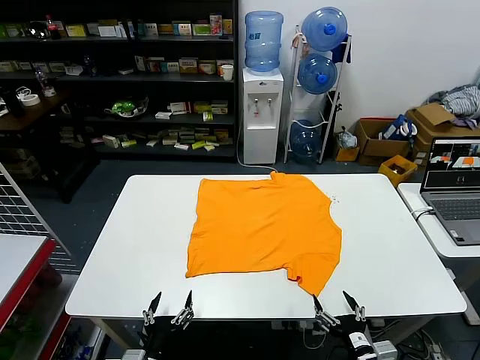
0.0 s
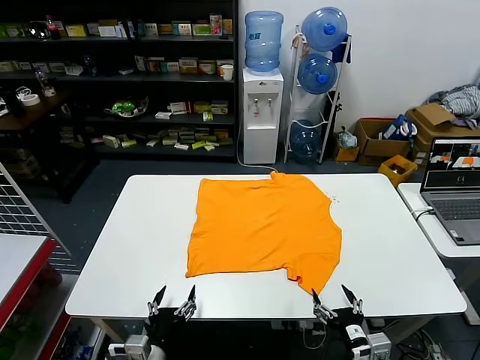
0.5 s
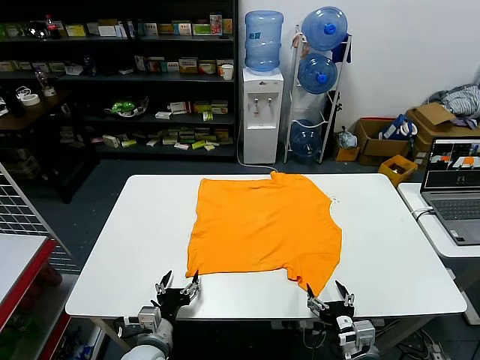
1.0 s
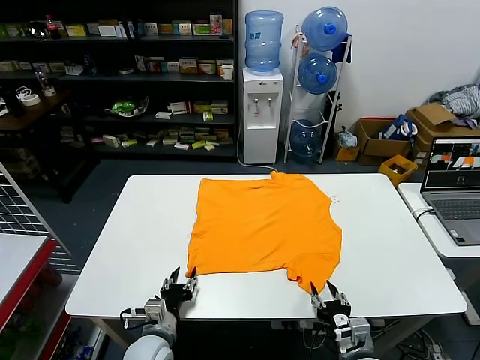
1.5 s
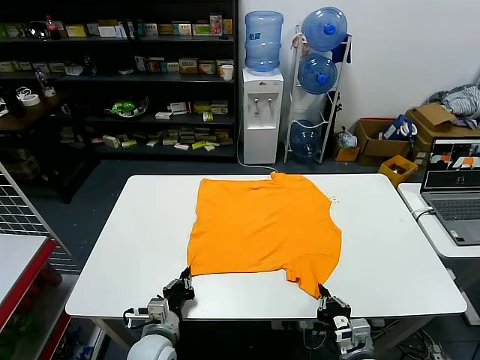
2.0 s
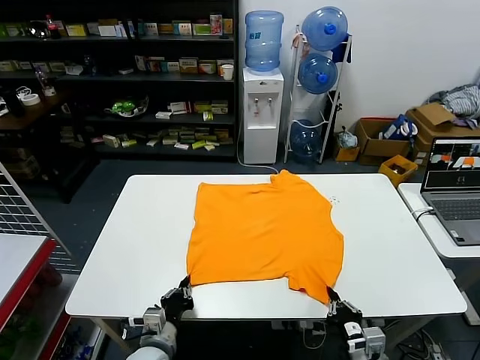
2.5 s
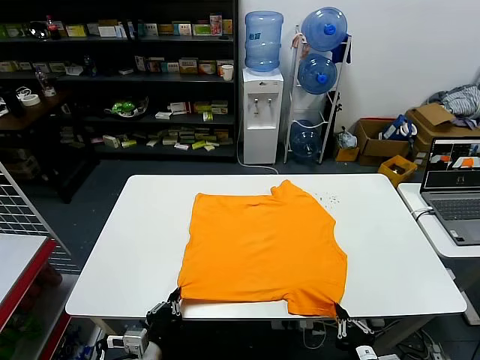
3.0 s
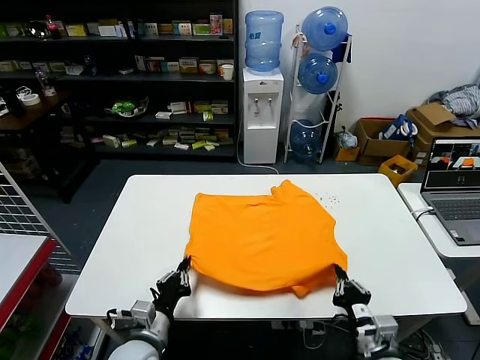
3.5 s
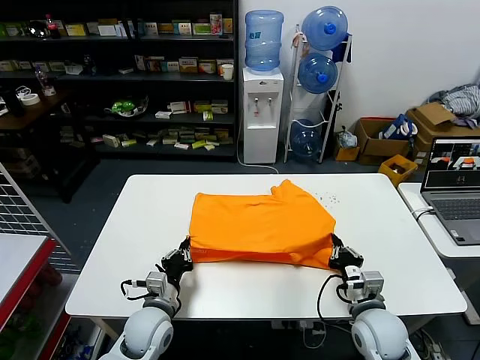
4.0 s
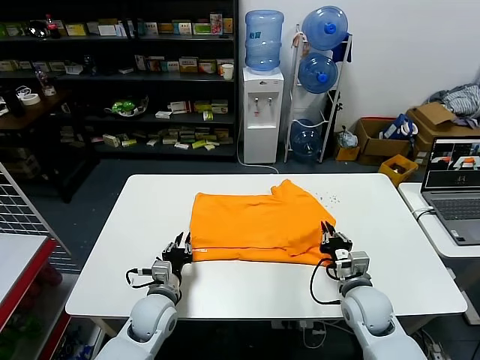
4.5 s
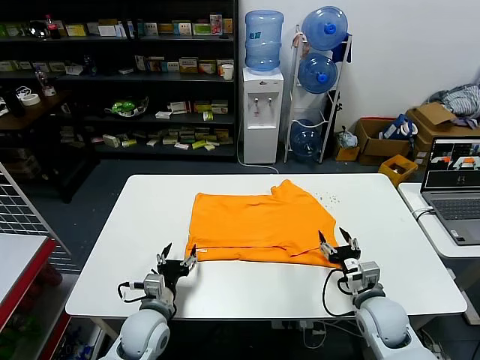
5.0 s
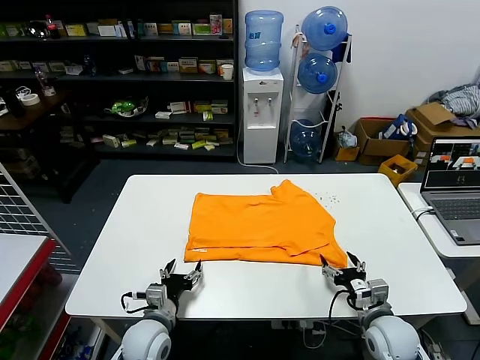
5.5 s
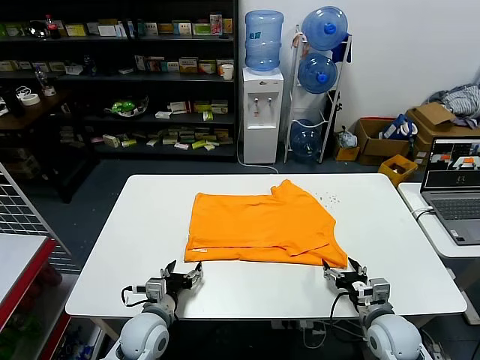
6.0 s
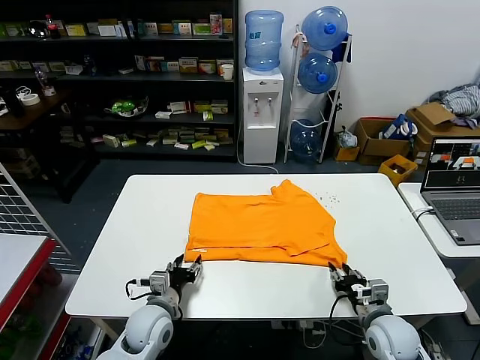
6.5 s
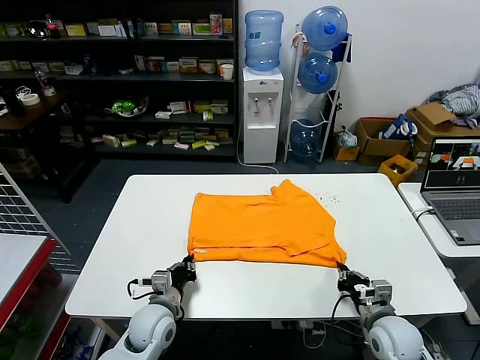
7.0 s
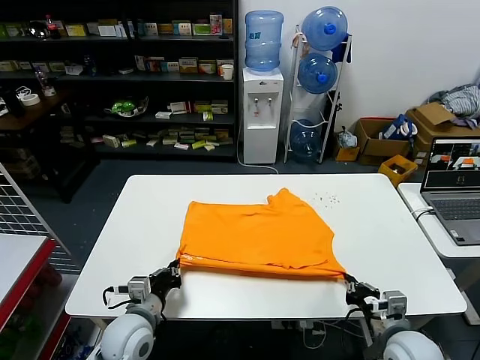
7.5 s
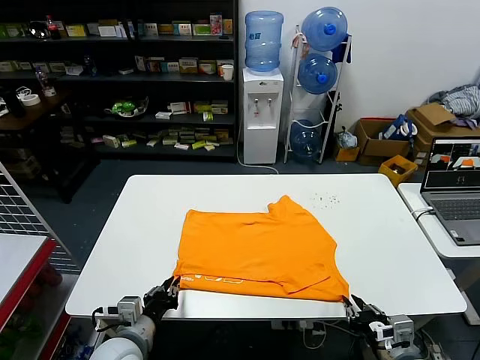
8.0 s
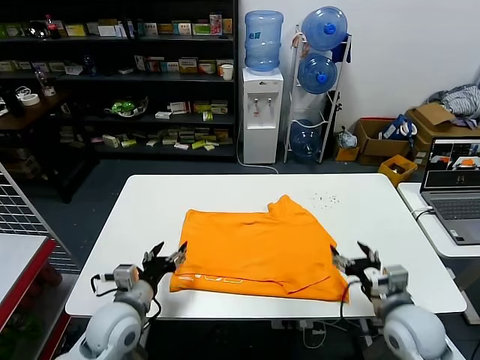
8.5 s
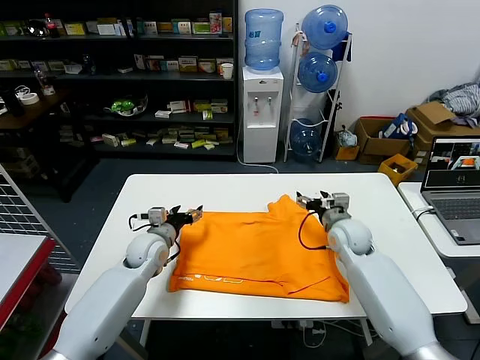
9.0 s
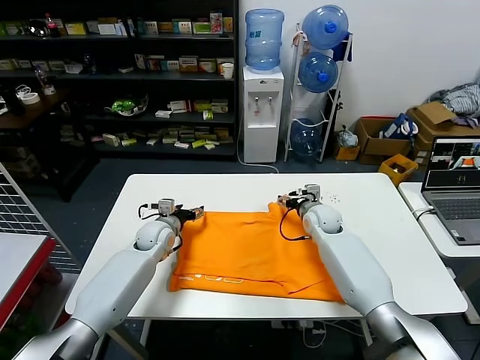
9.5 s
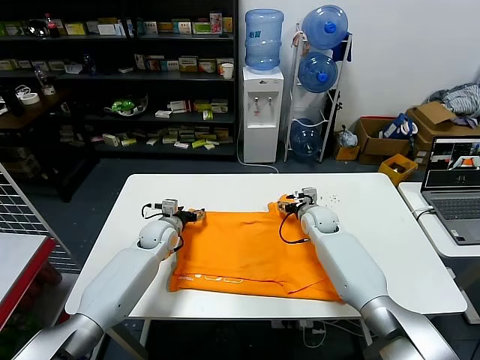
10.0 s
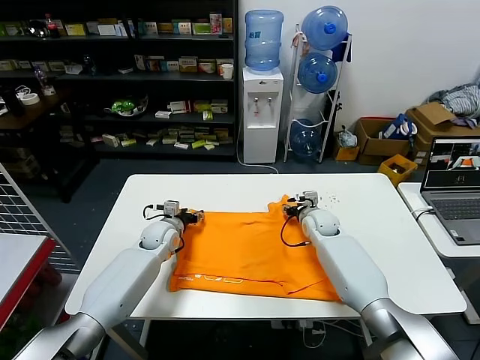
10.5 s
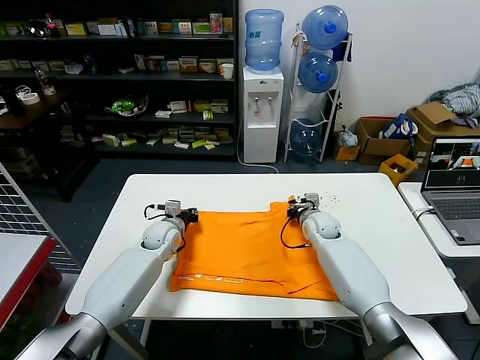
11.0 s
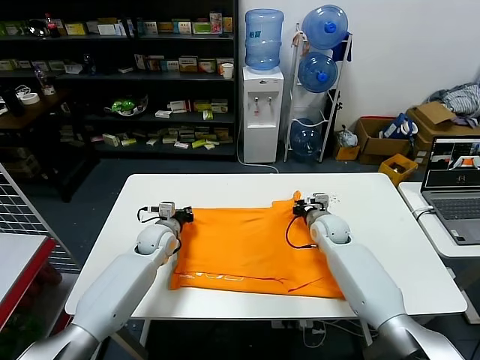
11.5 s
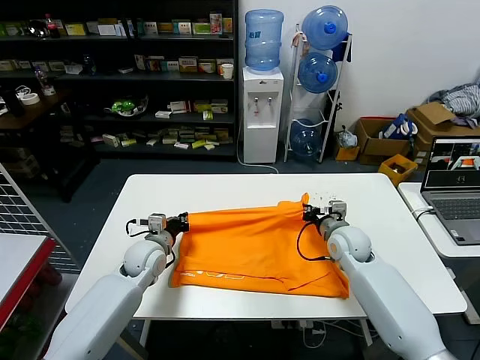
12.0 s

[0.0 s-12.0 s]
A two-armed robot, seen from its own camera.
Task of the whole recording: fold and organize the clothes.
Step, 0.0 to 2.5 s: use both grippers simultaneously to clamp the lower edge of the clothing fabric.
Step, 3.0 to 4.5 s: use both grippers to drag the lower edge of the fabric forward and fold it over the upper edge.
Step, 5.0 to 8.0 s: Drag the clothes downward with both gripper.
Step, 8.5 to 11.0 s: use both grippers simultaneously to clamp the upper edge of the clothing fabric.
2.0 to 4.0 s: The right gripper travels forward and upward by roughly 10 cm. Meanwhile the left gripper reaches roughly 10 cm backward, then returns.
4.0 to 6.0 s: The left gripper opens; the right gripper shifts by approximately 5 cm, and opens.
6.0 to 8.0 s: The two grippers go some 10 cm backward and upward. The right gripper closes its fingers. Meanwhile the left gripper closes.
8.0 to 10.0 s: The two grippers go roughly 35 cm forward. The left gripper opens; the right gripper opens its fingers.
10.0 to 12.0 s: The two grippers go about 10 cm backward. The left gripper closes. The right gripper closes its fingers.

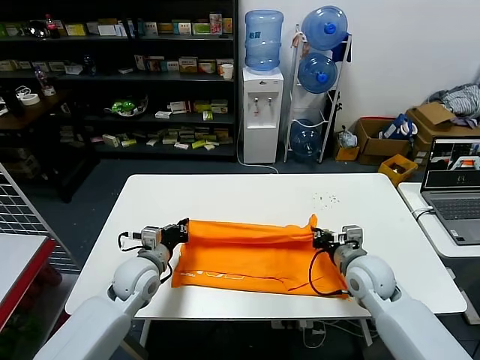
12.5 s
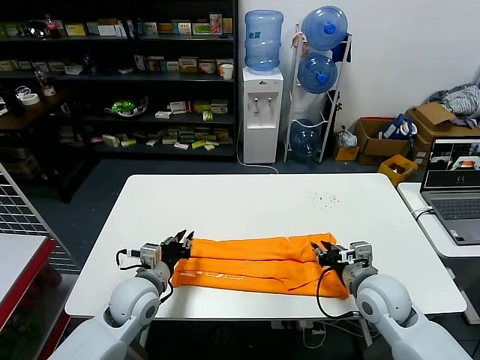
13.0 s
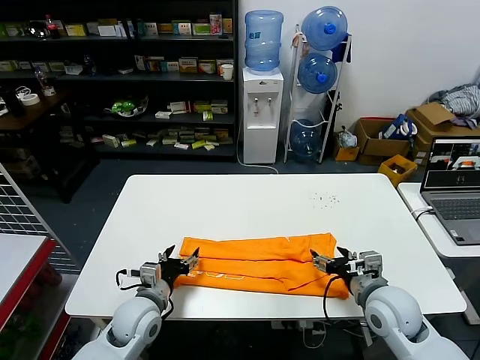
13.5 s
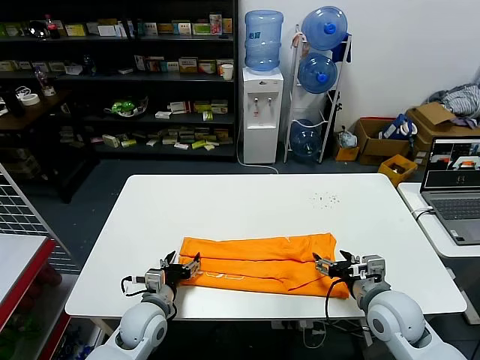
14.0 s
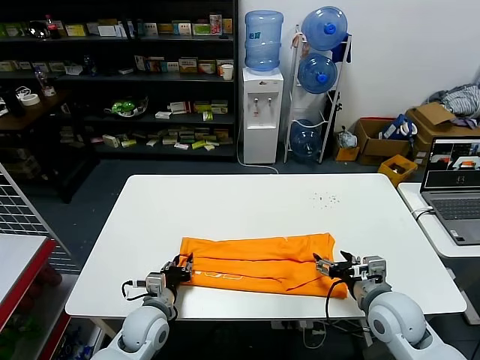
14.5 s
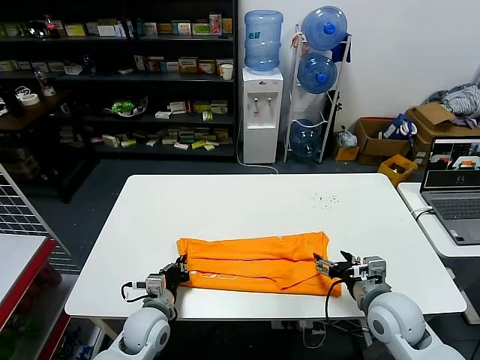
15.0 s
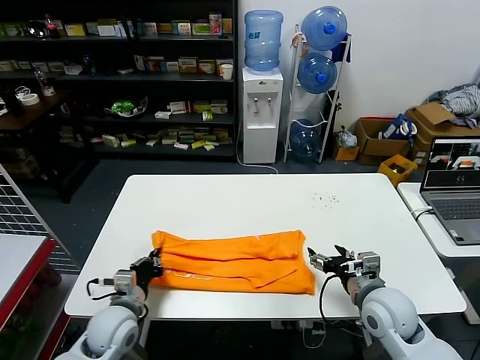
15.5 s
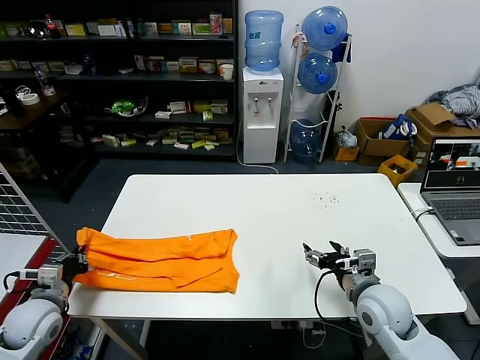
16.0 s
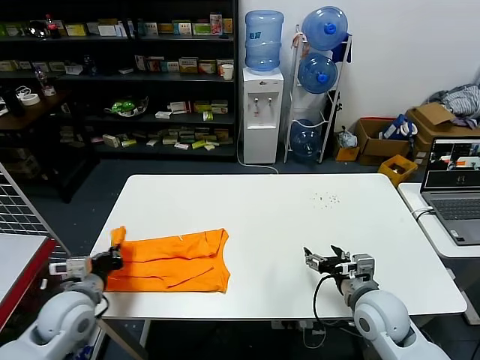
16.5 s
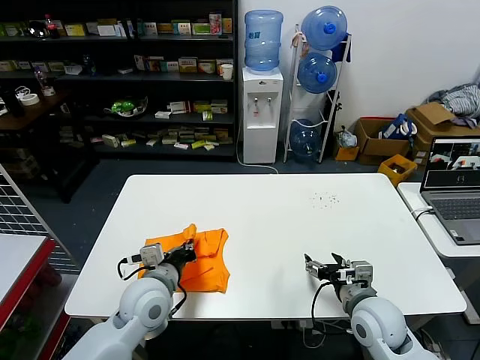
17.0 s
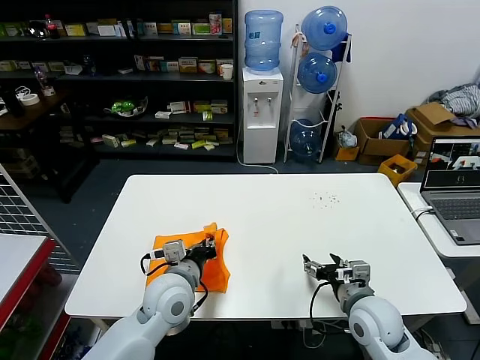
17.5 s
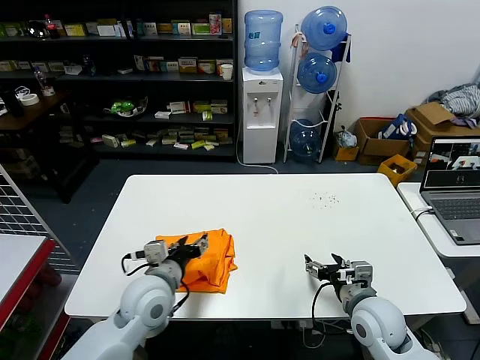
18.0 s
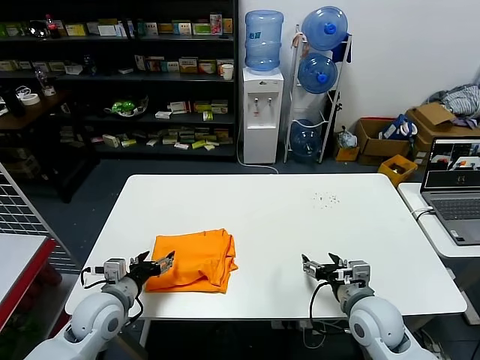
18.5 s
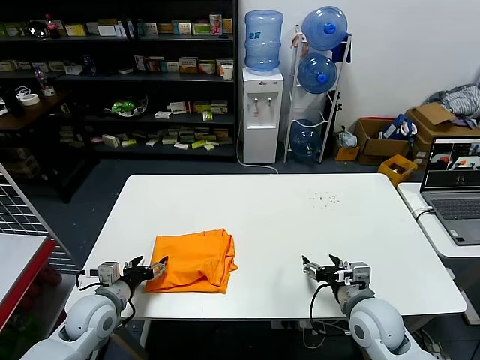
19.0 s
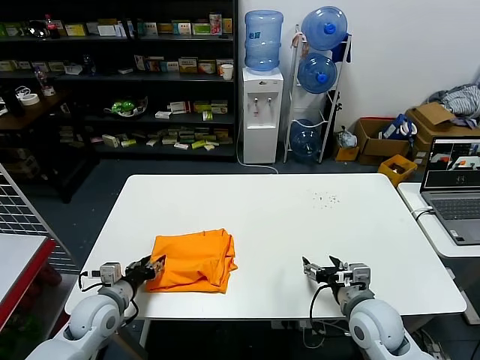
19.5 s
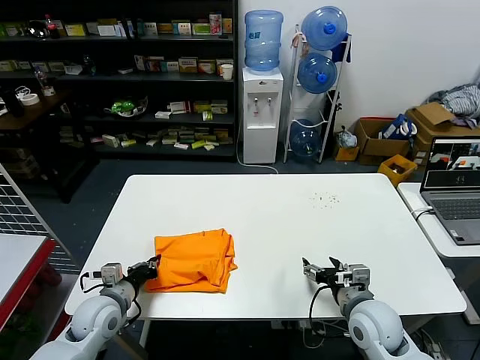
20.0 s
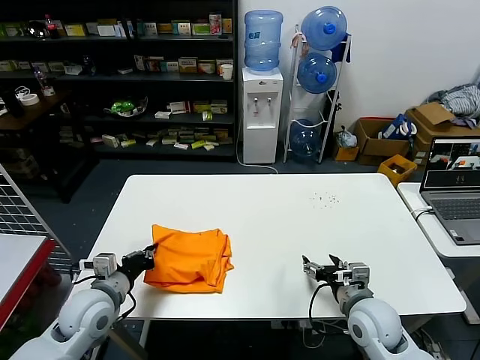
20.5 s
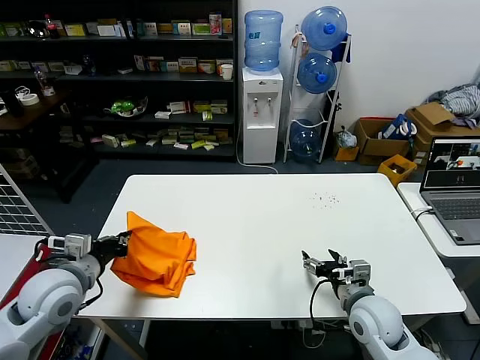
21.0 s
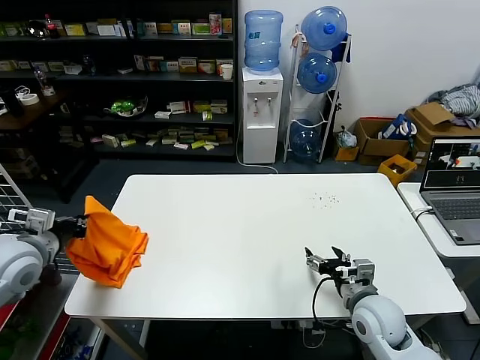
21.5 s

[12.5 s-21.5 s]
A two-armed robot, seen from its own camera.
Task of the whole recording: fold and organize the clothes.
Step, 13.5 to 14.5 s: use the left gripper to clamp the left edge of the fabric.
Step, 15.0 to 17.5 s: use the left gripper to drag the left edge of the fabric to the left and folds it over the right edge.
12.5 to 14.5 s: The right gripper moves backward, roughly 10 cm, and opens, while the left gripper goes some 10 cm downward and backward, and opens its fingers.
14.5 to 17.0 s: The left gripper heads upward, covering some 10 cm, reaches some 20 cm to the left, then returns, and closes its fingers.
17.0 to 19.5 s: The left gripper is displaced to the left and downward by roughly 15 cm, and opens its fingers.
19.5 to 21.5 s: The left gripper travels upward and to the left by roughly 20 cm, and closes.

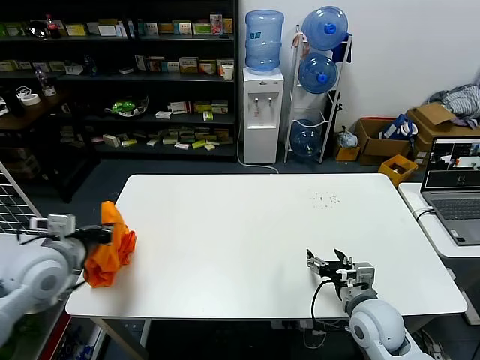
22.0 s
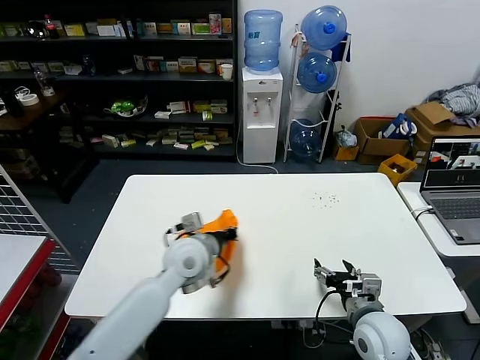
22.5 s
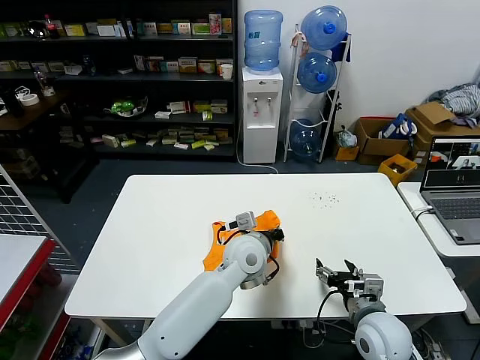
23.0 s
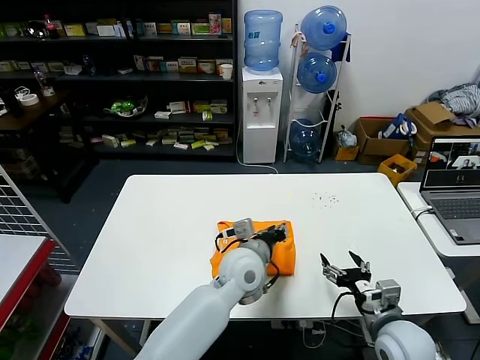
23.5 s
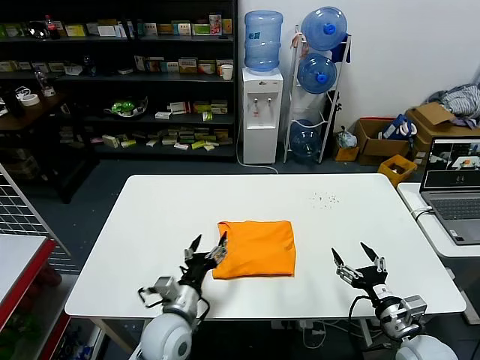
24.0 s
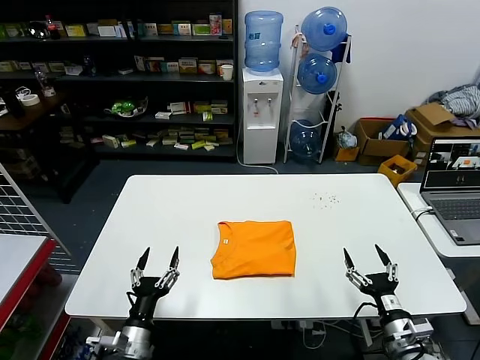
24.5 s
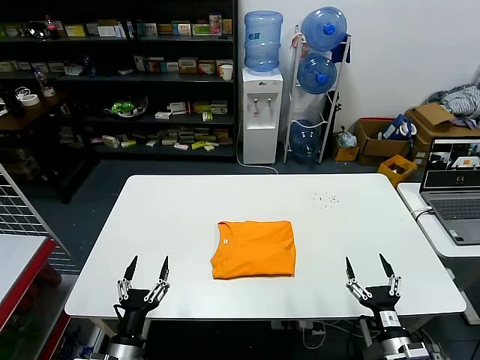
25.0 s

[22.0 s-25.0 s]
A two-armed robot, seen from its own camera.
Task of the whole recording: fold and organize the clothes.
22.0 to 23.5 s: The left gripper goes approximately 40 cm to the right, and opens up.
23.5 to 25.0 s: The left gripper travels to the left, backward and downward by approximately 35 cm, and opens its fingers; the right gripper moves downward and backward, roughly 10 cm.

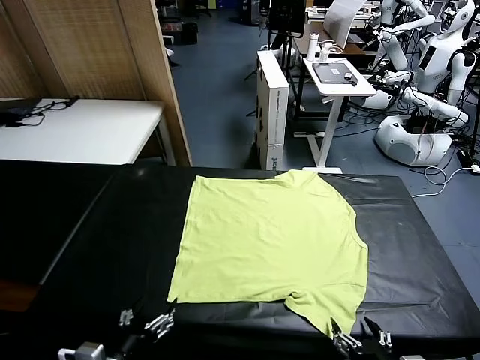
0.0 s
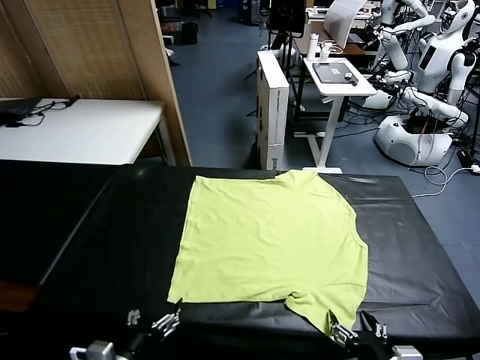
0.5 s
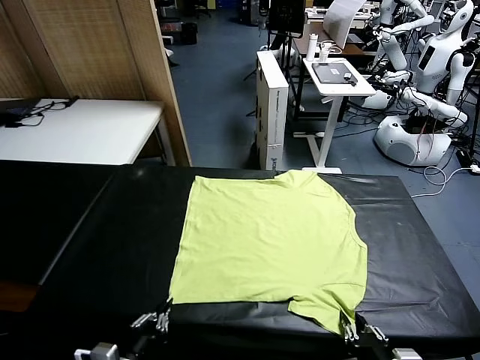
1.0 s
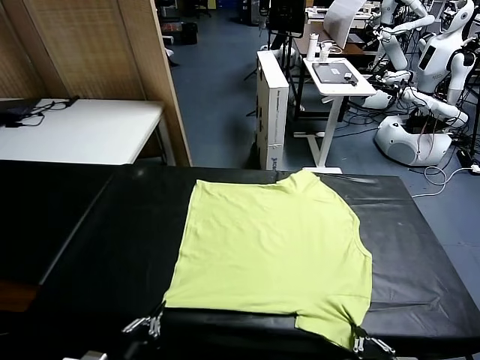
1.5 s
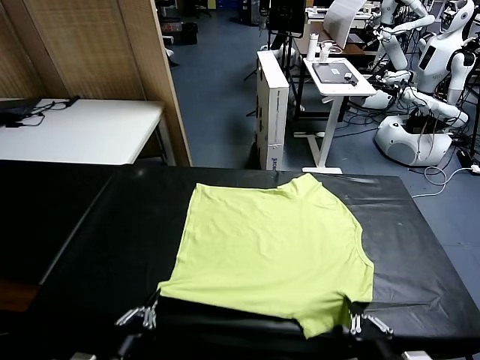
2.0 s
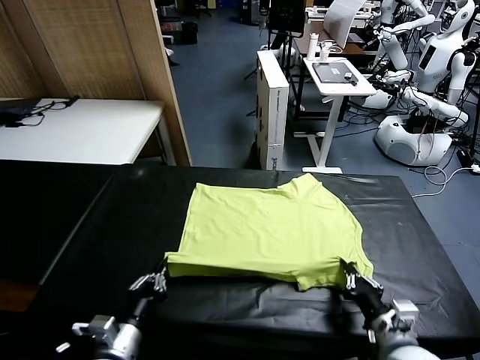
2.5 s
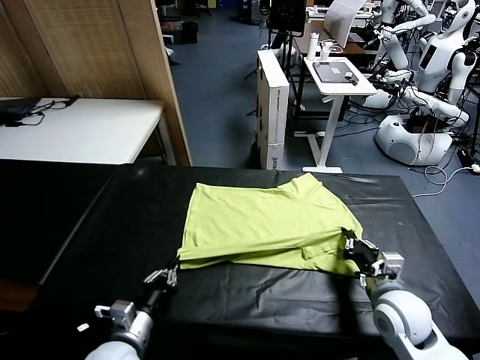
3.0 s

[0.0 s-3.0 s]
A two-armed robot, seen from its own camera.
Task of the whole recording: fold and organize the clothes.
Step, 0.0 to 1.5 s: use both grippers simultaneously to clamp the lower edge of the clothing fabric.
1.5 to 3.0 s: The left gripper moves forward, some 10 cm. The right gripper moves forward, approximately 20 cm.
